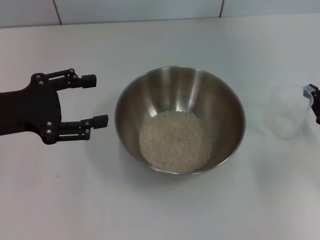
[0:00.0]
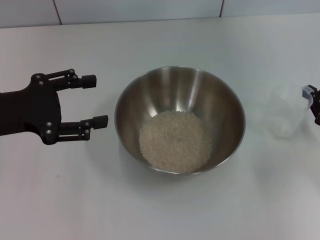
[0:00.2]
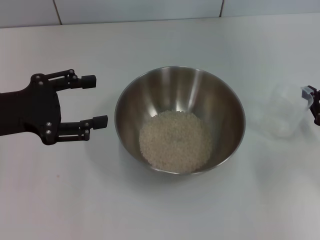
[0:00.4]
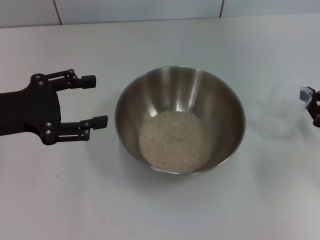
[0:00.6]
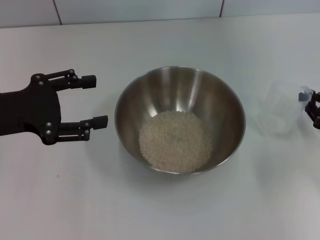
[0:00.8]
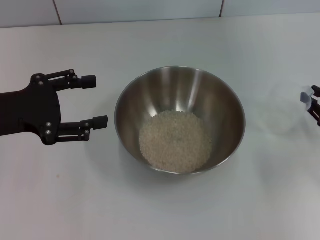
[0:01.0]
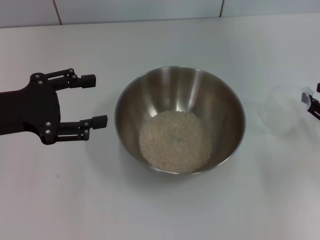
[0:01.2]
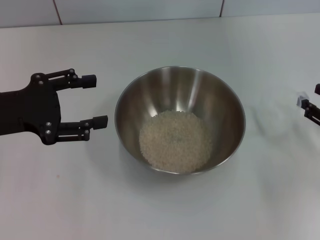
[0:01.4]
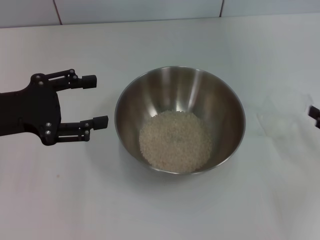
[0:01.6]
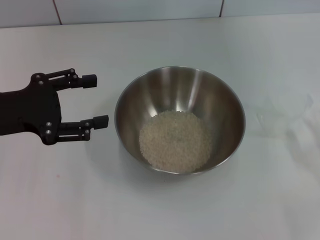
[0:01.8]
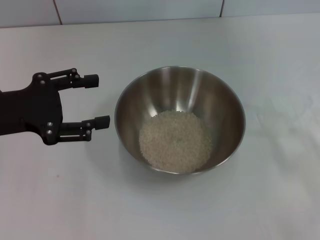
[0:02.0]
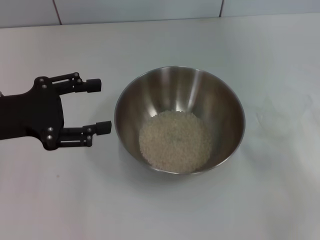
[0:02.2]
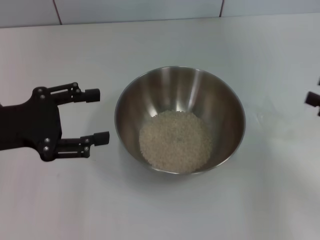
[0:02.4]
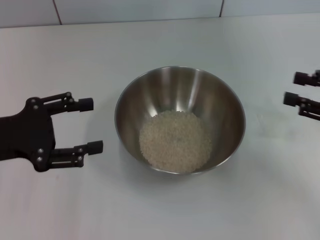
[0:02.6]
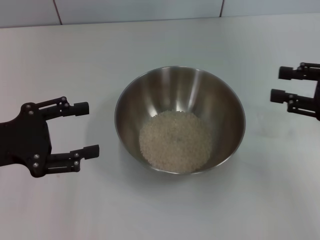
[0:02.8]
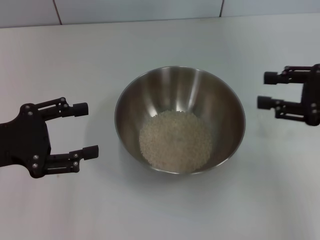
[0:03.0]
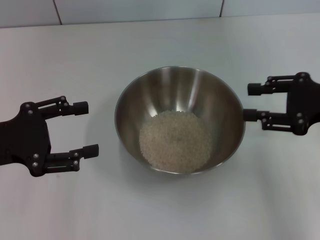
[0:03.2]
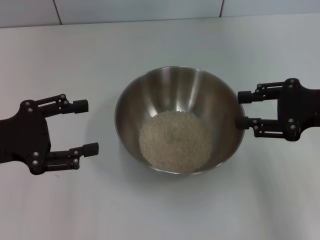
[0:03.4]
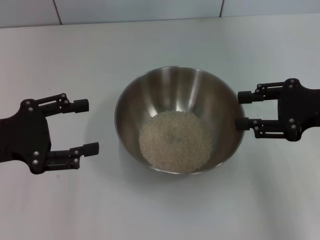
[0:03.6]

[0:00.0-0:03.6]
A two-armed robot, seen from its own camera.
Task of the whole recording: Place the bowl in the middle of the table with one hand and pour the rice from the grain cup into it with the other hand.
0:00.0 to 0:01.8: The right gripper travels backward by approximately 5 cm, and opens.
0:01.8 to 0:03.6: The right gripper travels upward, to the left and forward by about 15 cm.
